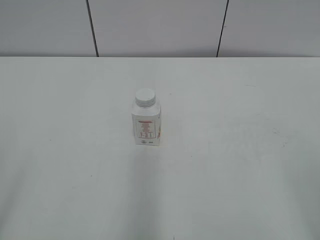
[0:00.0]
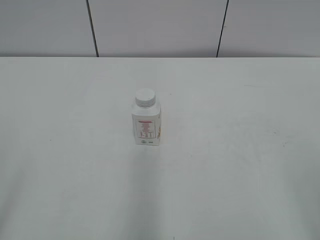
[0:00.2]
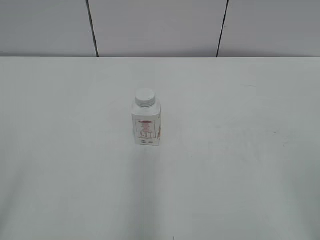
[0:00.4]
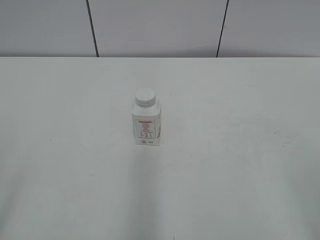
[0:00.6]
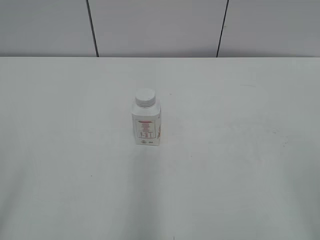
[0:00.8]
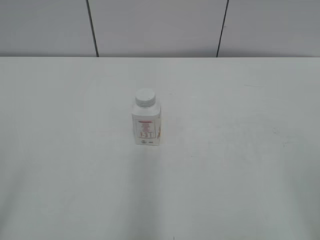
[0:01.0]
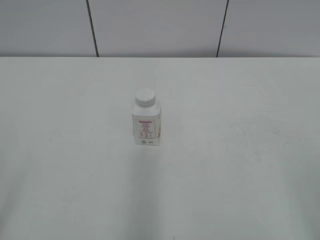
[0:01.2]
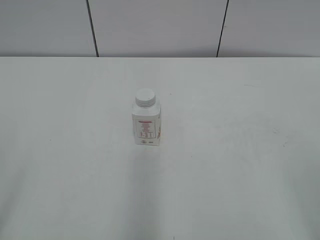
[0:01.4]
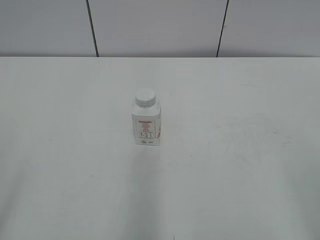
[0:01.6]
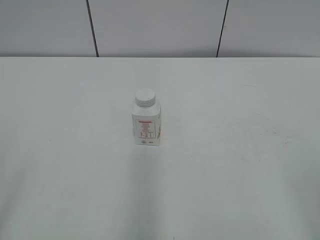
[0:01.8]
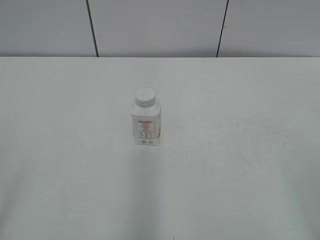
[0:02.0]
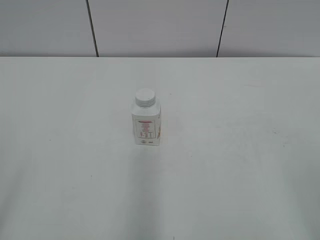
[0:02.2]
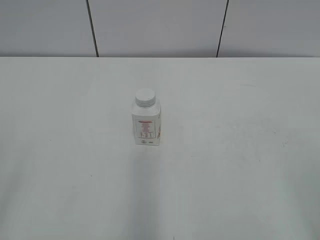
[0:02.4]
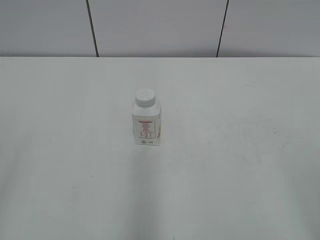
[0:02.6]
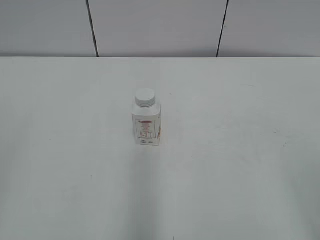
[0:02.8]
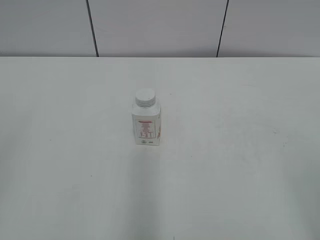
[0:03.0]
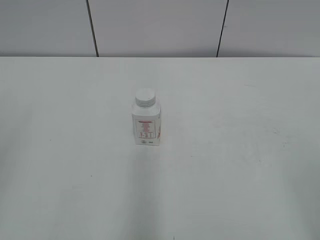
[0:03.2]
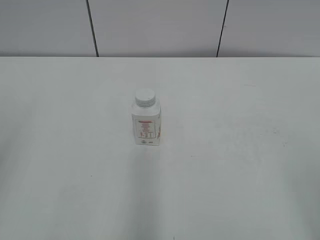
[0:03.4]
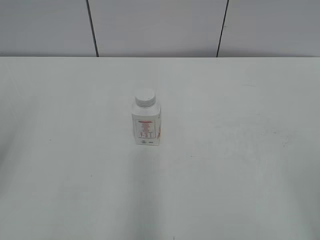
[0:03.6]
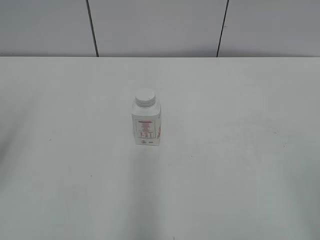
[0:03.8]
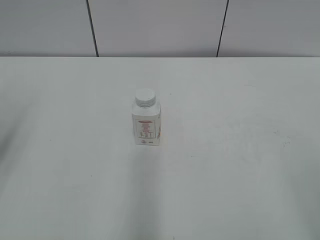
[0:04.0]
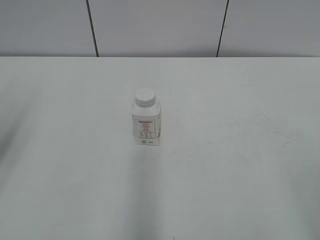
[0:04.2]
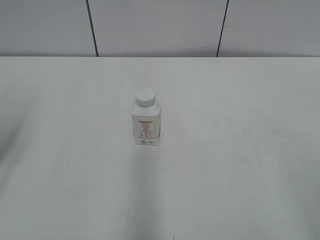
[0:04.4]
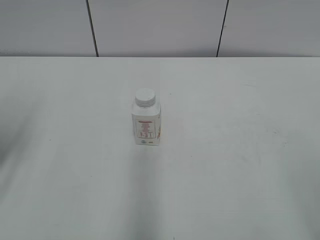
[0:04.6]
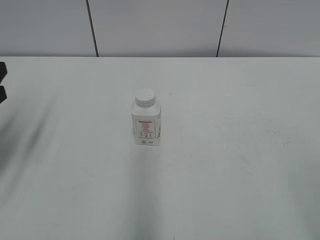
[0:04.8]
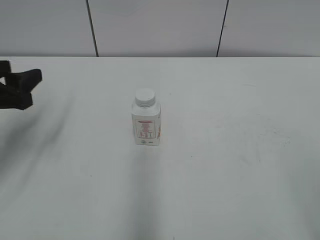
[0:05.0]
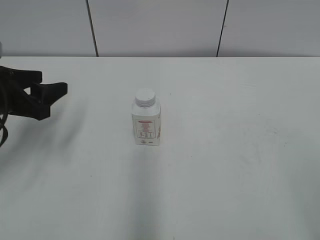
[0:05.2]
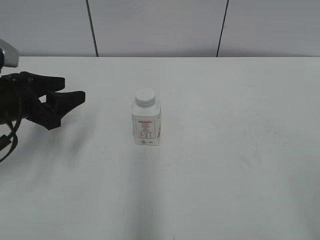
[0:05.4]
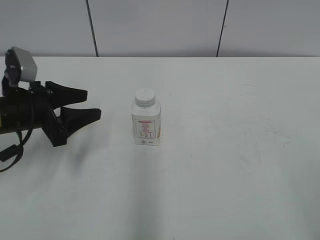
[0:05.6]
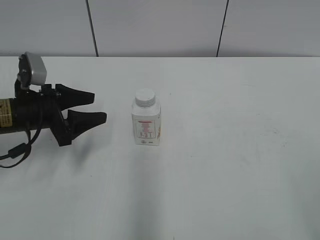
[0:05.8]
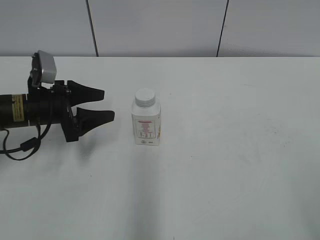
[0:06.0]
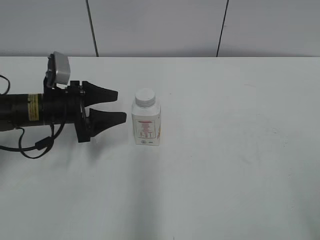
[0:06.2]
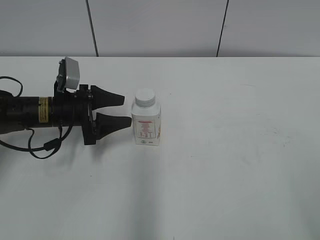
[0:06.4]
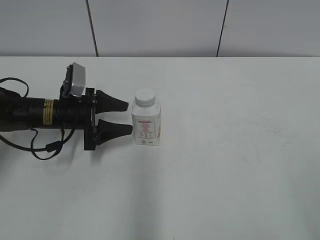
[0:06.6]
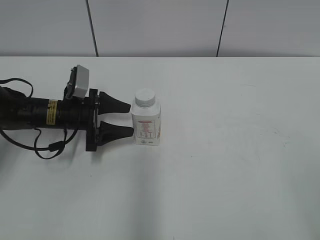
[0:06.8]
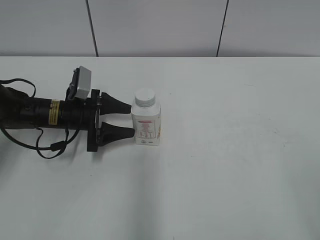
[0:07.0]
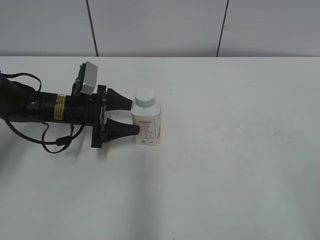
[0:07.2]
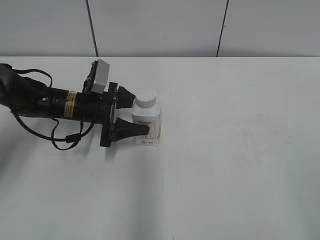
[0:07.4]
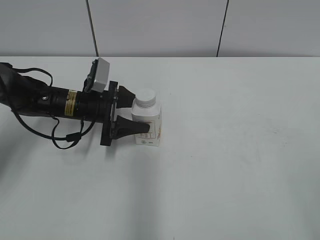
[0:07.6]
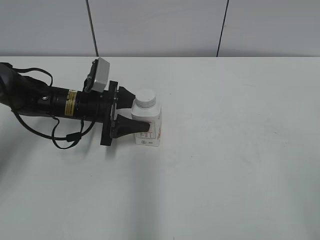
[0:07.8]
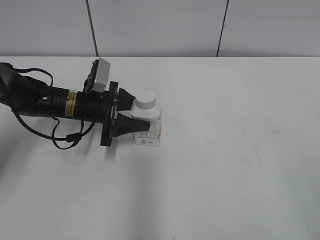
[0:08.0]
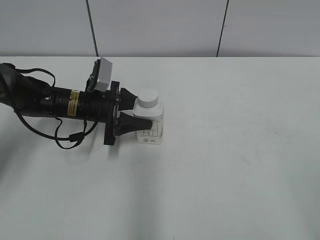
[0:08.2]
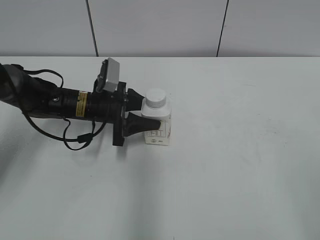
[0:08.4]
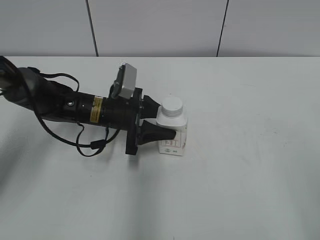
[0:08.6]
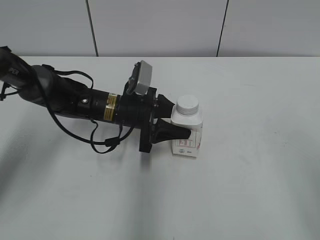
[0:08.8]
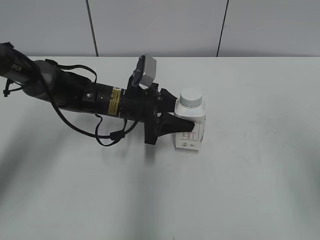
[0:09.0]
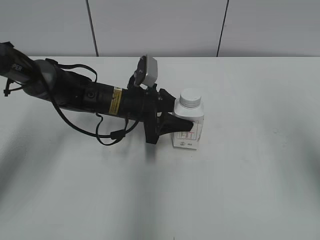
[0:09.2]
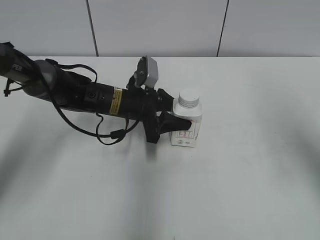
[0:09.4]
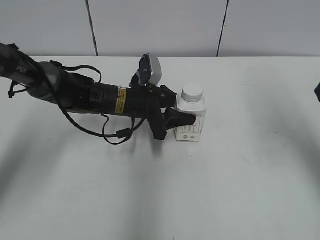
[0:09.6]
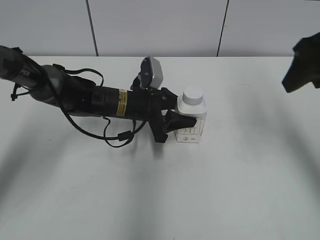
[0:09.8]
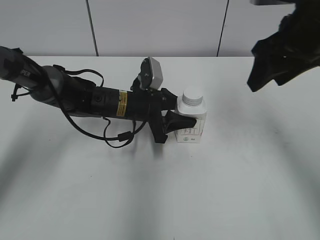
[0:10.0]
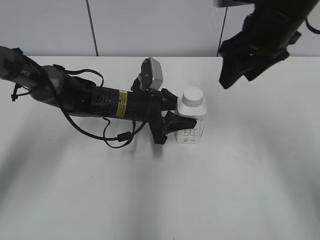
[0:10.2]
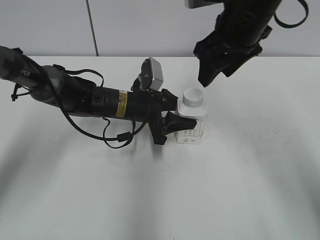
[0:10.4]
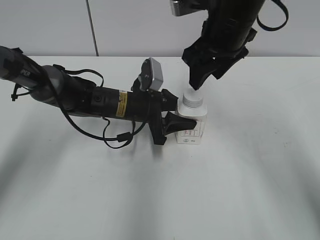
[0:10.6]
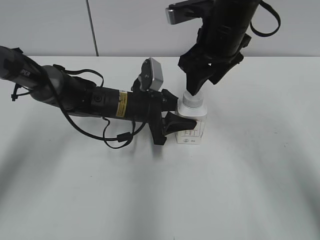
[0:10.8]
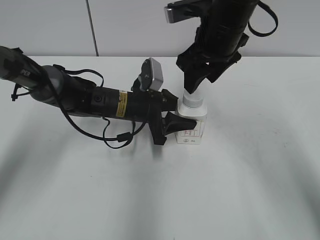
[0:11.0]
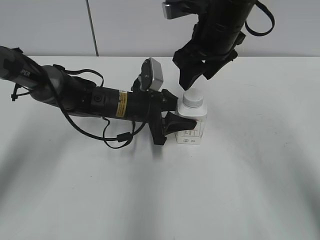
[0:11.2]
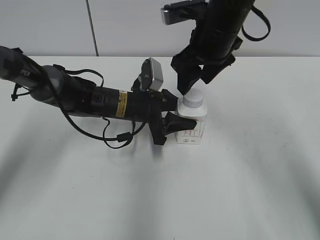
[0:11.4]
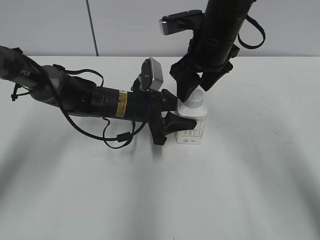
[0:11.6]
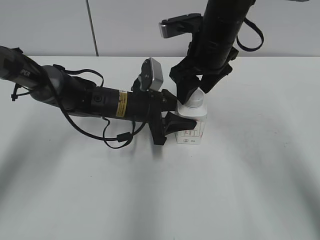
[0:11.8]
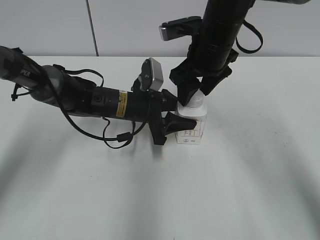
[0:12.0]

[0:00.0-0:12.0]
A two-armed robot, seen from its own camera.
Step, 0:00.0 to 0:07.8: Grab the Yili Changqing with the left hand.
Step, 0:08.0 to 0:09.8: Move the Yili Changqing from left to right.
0:04.4 to 0:06.0: The left gripper moves downward, forward and to the right, roughly 20 cm.
0:06.0 to 0:07.6: The left gripper is displaced to the right by approximately 5 cm.
0:07.6 to 0:09.0: The right gripper goes some 10 cm forward; the left gripper travels to the right by roughly 10 cm, and closes its fingers.
0:09.0 to 0:10.4: The right gripper heads forward and to the left, covering about 30 cm, and closes its fingers.
0:10.4 to 0:12.0: The right gripper heads downward, covering some 5 cm.

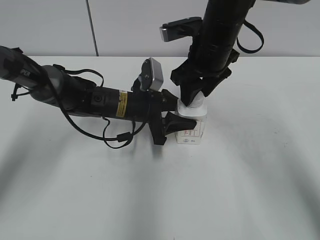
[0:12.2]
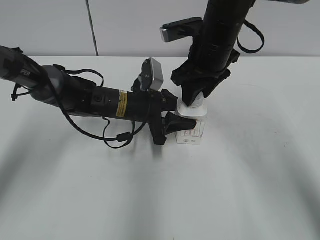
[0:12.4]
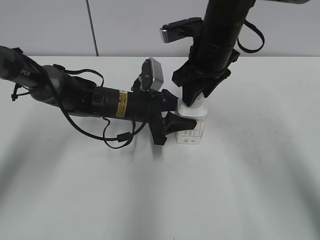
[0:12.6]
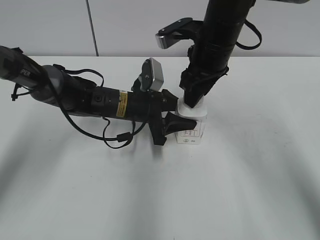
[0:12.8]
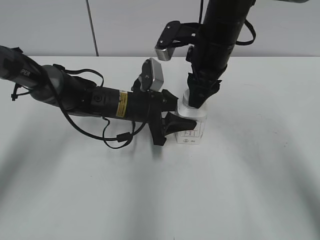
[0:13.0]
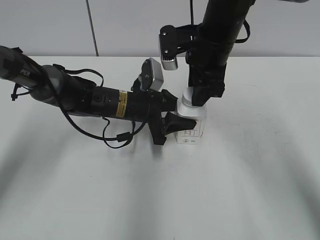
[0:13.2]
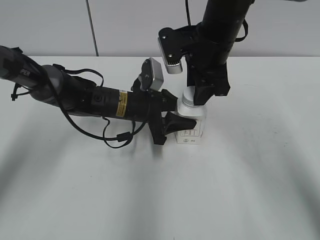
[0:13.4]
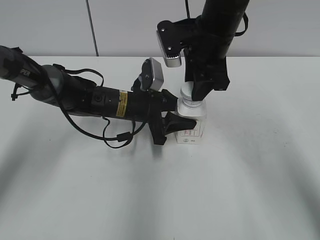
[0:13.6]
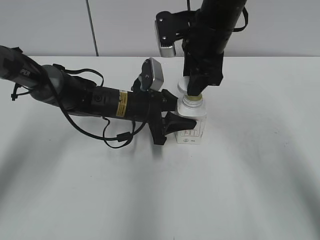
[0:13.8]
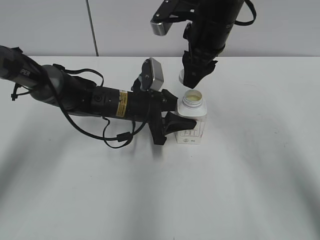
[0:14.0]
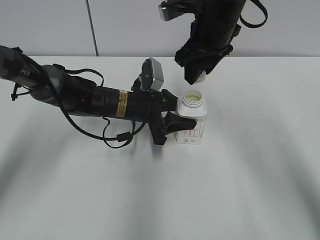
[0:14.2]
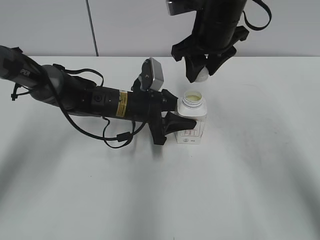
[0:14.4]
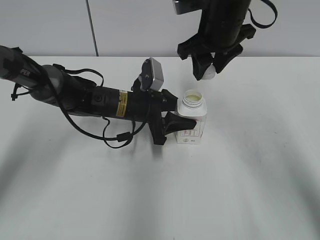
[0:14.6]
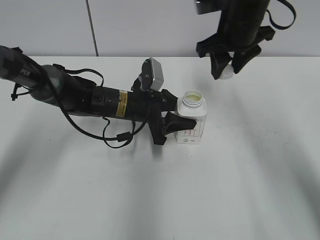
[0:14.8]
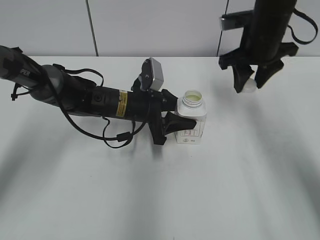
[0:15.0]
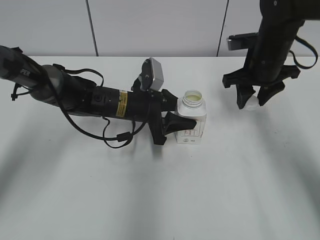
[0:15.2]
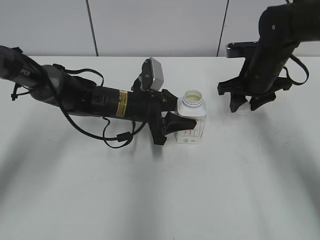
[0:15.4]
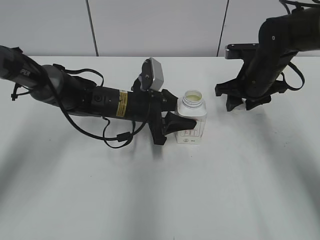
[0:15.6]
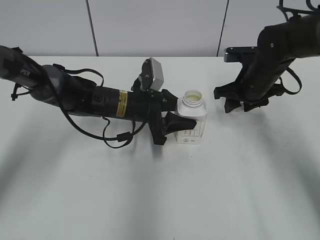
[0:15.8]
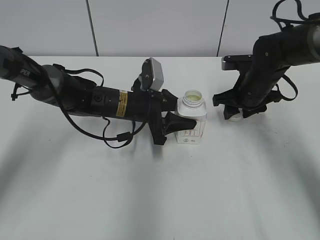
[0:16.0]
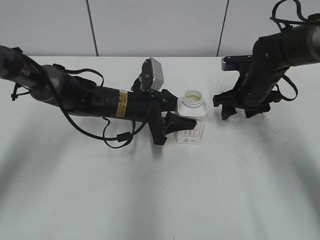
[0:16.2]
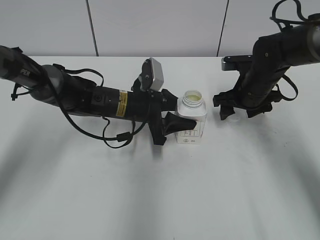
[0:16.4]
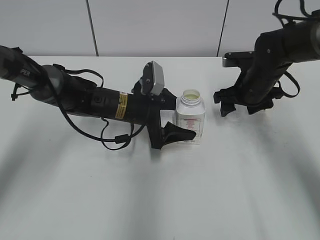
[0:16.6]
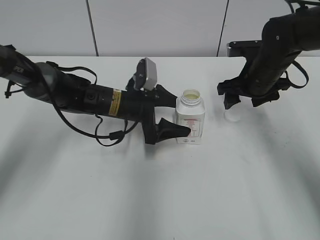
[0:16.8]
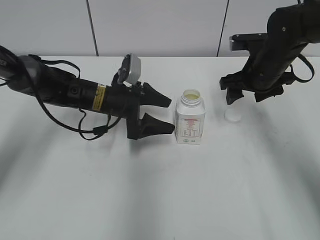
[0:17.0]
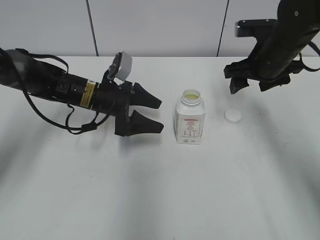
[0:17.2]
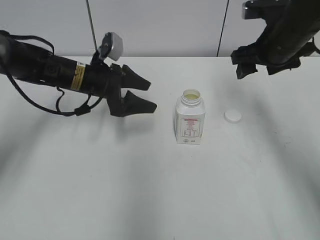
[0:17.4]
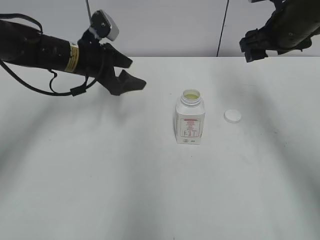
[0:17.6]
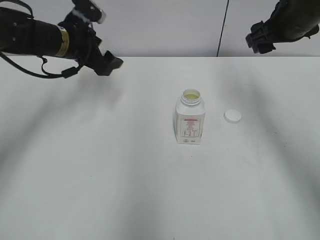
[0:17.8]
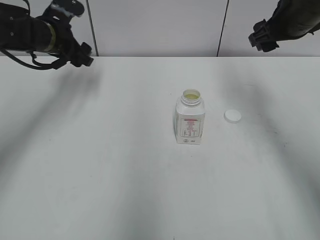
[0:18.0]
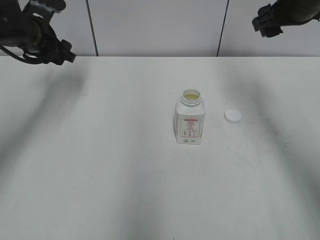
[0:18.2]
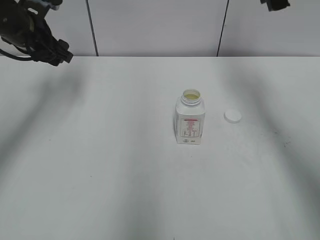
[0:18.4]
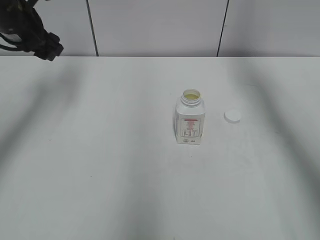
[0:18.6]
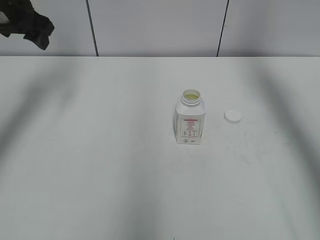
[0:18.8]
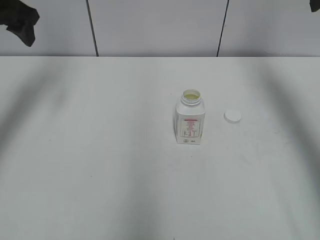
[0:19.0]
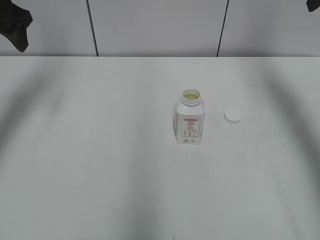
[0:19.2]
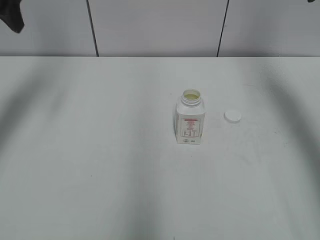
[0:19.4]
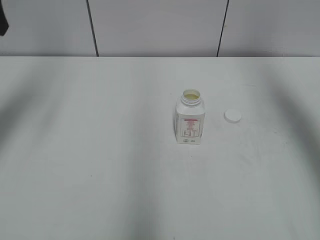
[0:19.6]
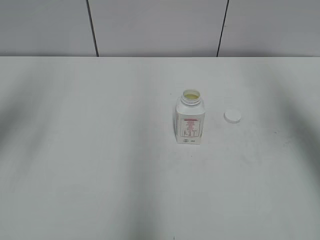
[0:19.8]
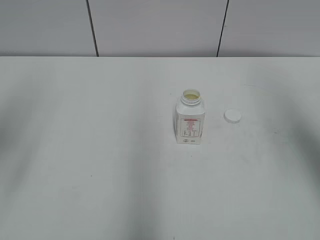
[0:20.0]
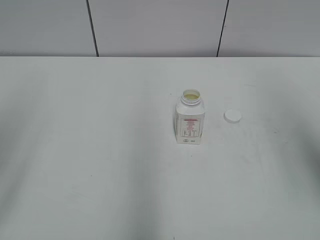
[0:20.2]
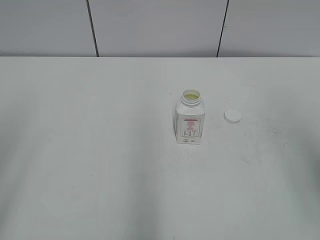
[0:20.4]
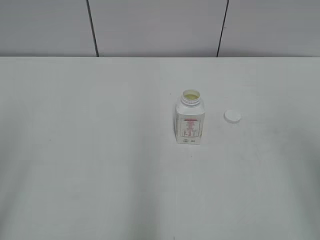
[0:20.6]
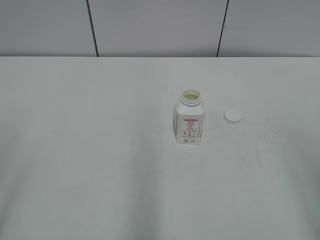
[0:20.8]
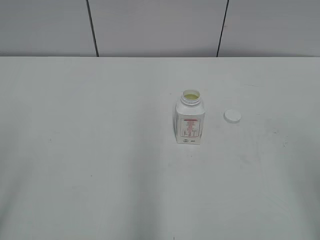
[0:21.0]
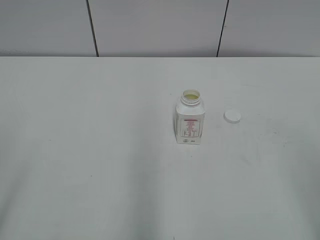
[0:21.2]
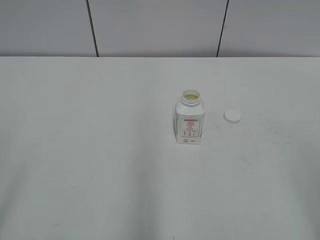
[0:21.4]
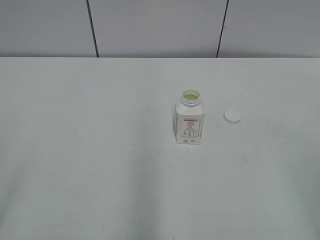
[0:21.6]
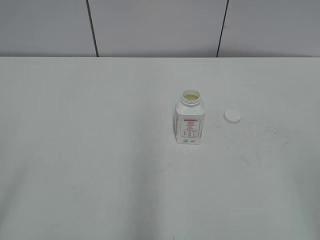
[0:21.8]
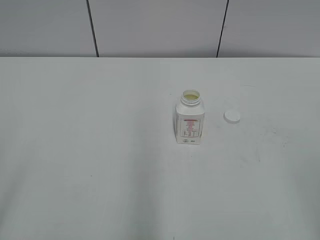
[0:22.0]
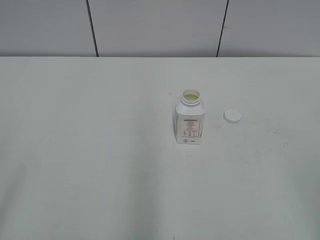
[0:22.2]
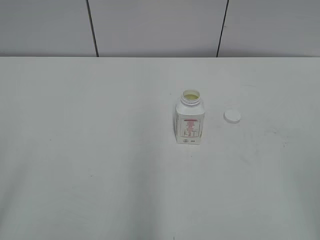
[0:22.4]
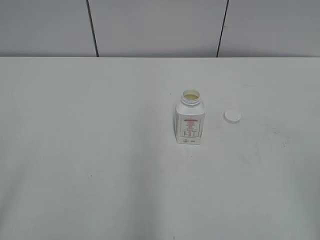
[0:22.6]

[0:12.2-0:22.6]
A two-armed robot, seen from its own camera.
Step, 0:13.6 to 0:16.2: Place the bottle cap on the right.
0:13.6 to 0:15.2: The right gripper travels to the right and downward by about 15 cm.
0:15.2 to 0:16.6: The right gripper goes approximately 5 cm downward, and opens. Meanwhile the left gripper opens.
0:16.6 to 0:18.2: The right gripper moves upward, roughly 15 cm; the left gripper is displaced to the left and upward by some 20 cm.
0:18.2 to 0:19.6: The left gripper shifts some 20 cm upward and backward. Meanwhile the right gripper moves upward, backward and to the right, about 15 cm.
0:19.6 to 0:21.2: Both grippers travel together backward, about 30 cm.
